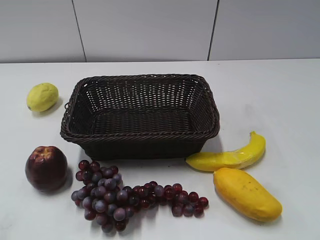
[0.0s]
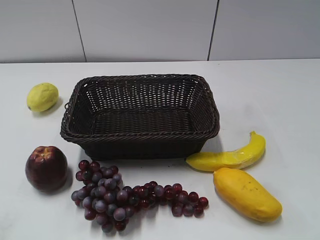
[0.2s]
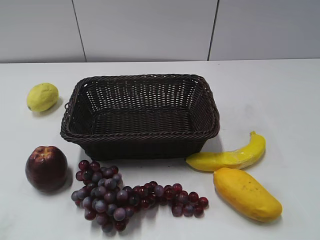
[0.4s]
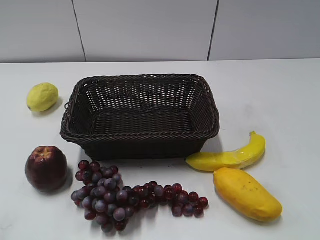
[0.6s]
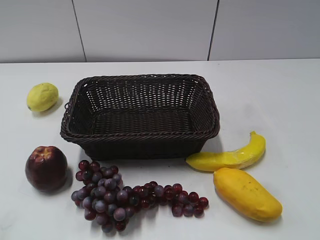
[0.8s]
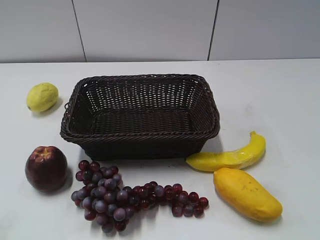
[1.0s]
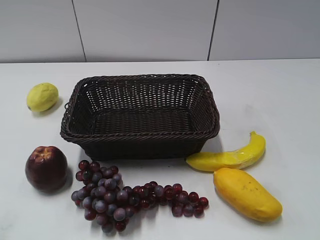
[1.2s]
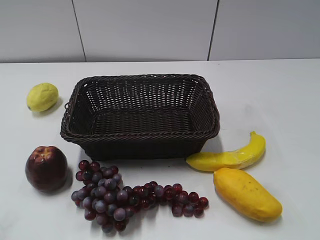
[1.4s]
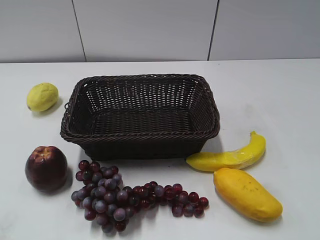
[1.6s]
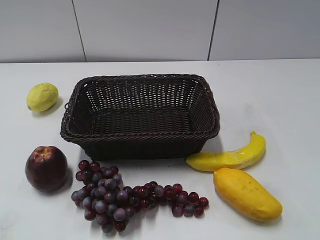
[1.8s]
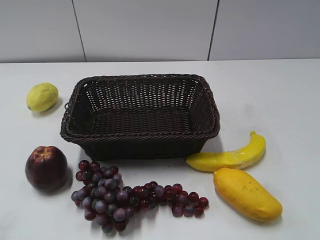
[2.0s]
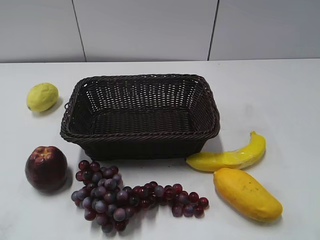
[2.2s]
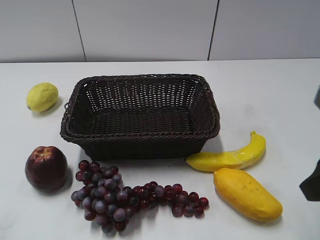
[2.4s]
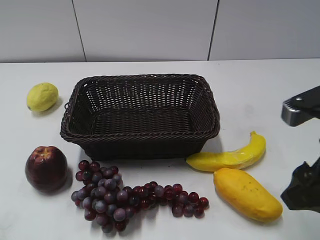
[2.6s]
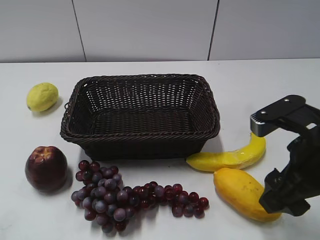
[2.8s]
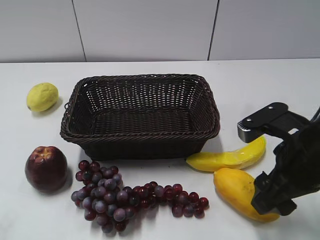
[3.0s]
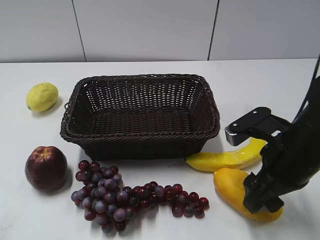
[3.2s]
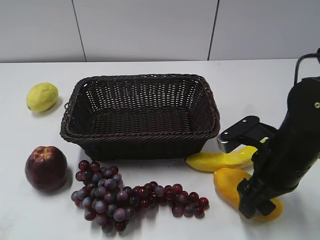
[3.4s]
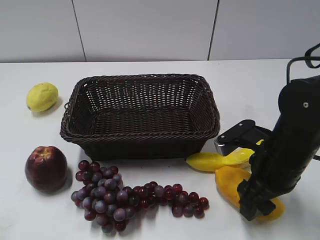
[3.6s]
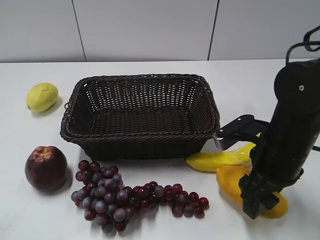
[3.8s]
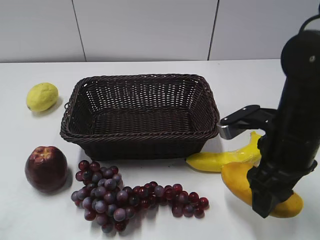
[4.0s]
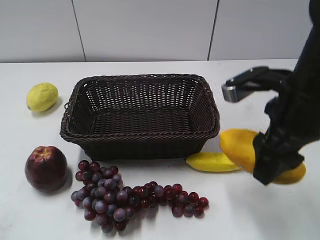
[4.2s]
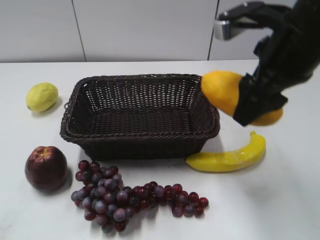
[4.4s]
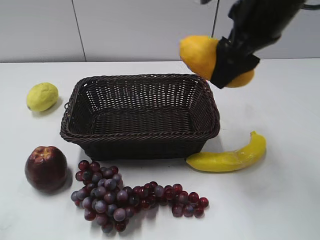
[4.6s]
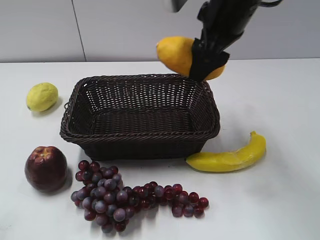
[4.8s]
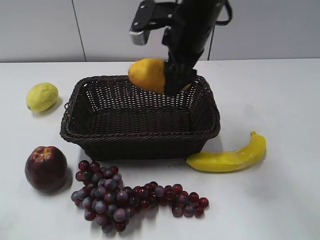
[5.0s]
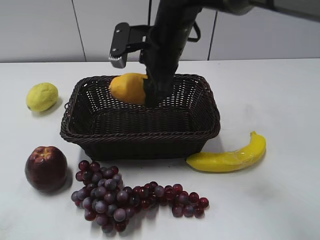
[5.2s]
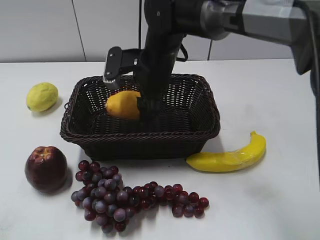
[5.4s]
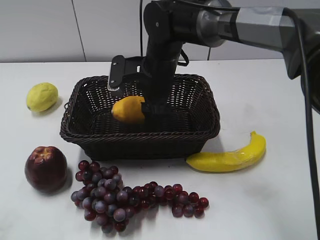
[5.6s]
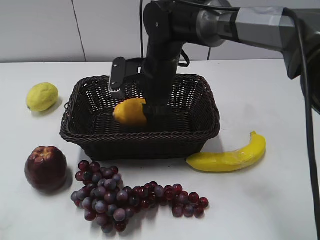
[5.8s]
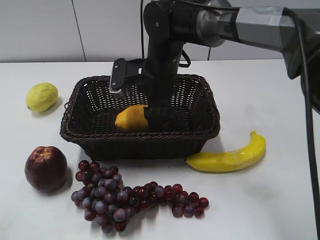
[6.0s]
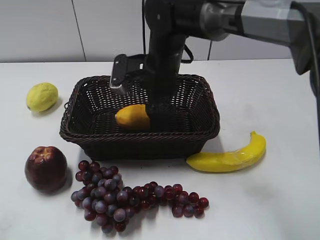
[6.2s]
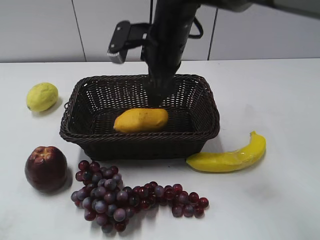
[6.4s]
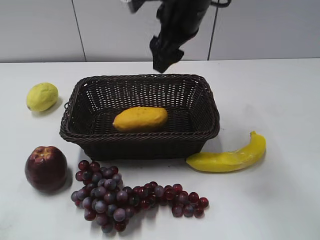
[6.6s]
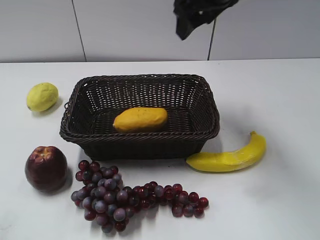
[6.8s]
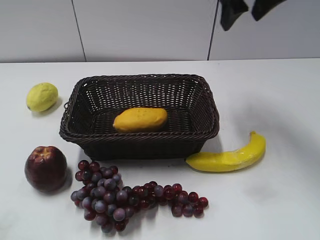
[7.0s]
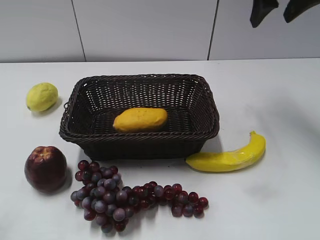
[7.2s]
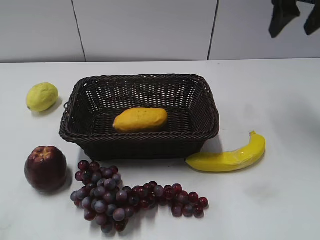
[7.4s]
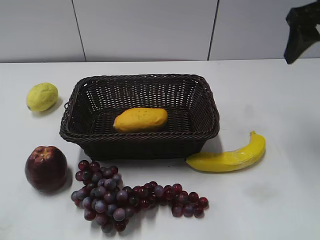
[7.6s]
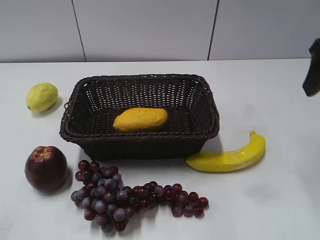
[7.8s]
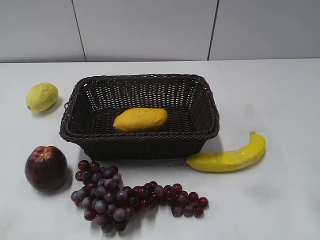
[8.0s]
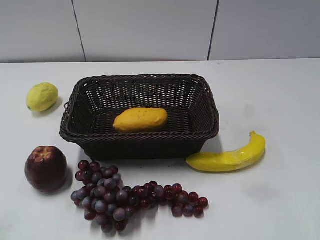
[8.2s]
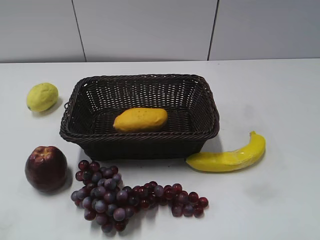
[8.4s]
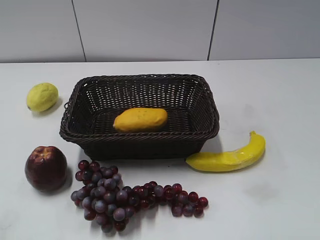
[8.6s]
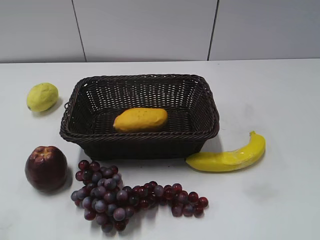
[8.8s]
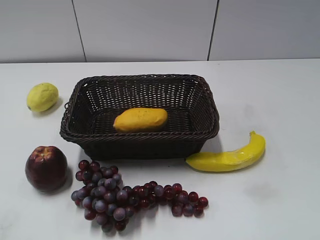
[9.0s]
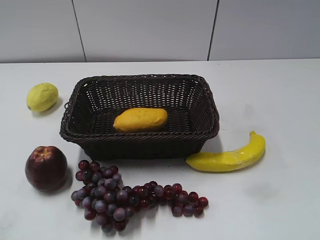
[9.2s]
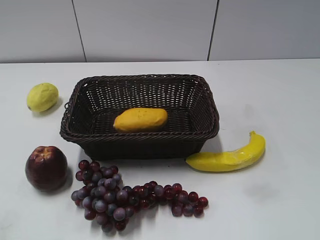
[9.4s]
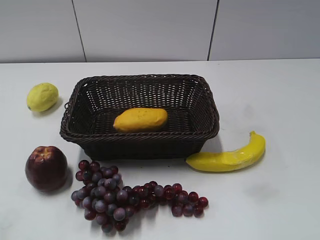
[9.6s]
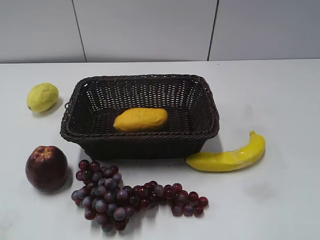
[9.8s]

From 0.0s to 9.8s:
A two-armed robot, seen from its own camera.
Step, from 2.4s to 3.6s: Grasp the mango with right gripper.
Step, from 3.8s to 6.0s: Place the mango in the basket with right gripper.
From 1.4s to 2.8s: The right gripper shifts about 20 cm forward, to the left and downward.
From 2.8s to 4.2s: The right gripper travels downward and back again, roughly 10 cm each way.
From 4.2s to 5.6s: The right gripper moves to the left, forward and downward, some 25 cm.
From 5.6s to 7.0s: The right gripper goes about 25 cm upward and to the right.
From 7.0s to 8.4s: The right gripper goes approximately 30 cm backward and to the right.

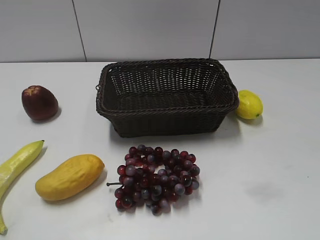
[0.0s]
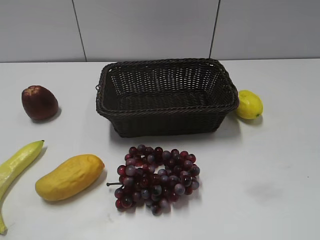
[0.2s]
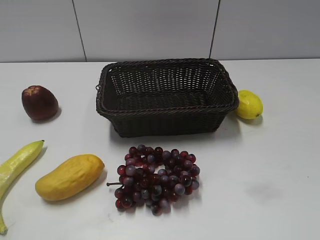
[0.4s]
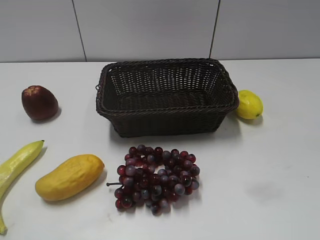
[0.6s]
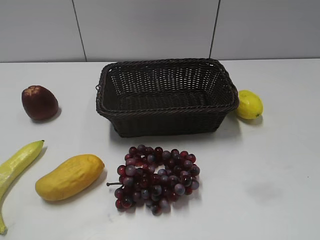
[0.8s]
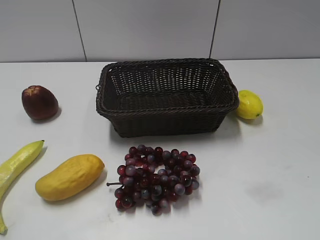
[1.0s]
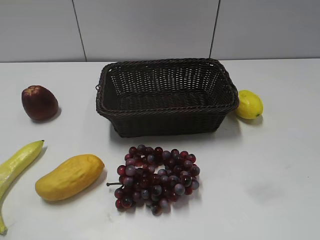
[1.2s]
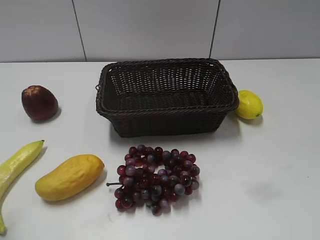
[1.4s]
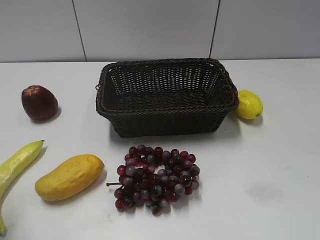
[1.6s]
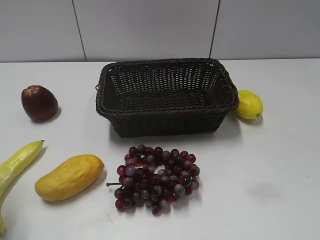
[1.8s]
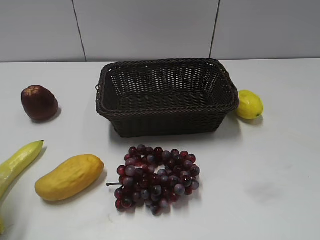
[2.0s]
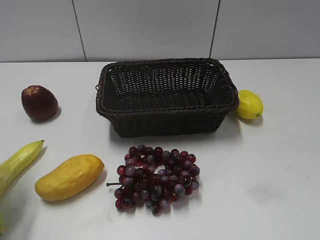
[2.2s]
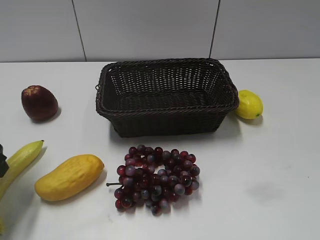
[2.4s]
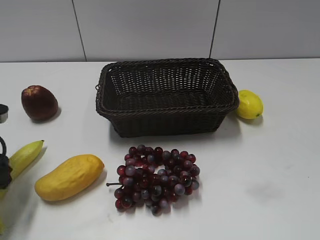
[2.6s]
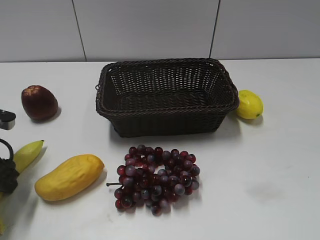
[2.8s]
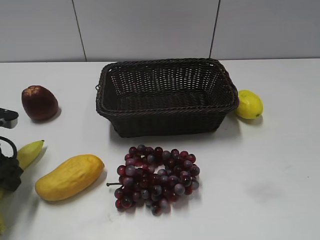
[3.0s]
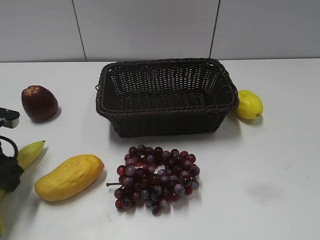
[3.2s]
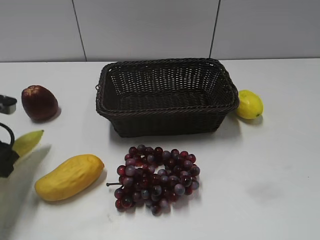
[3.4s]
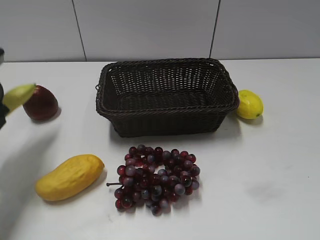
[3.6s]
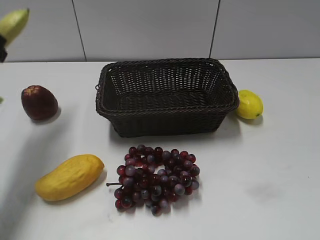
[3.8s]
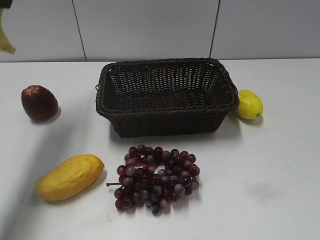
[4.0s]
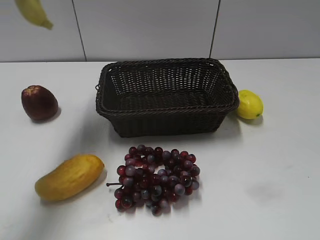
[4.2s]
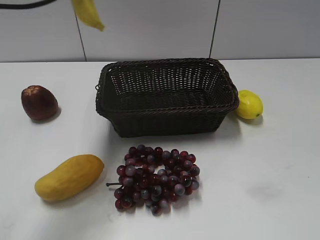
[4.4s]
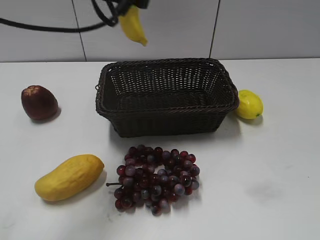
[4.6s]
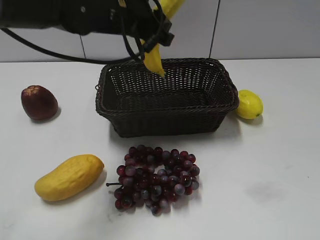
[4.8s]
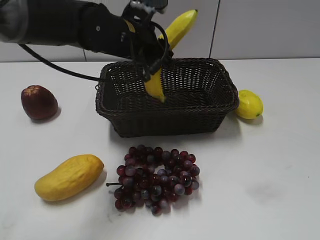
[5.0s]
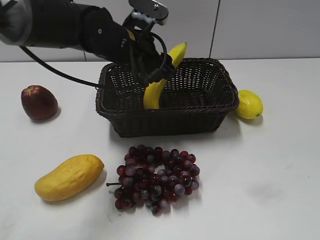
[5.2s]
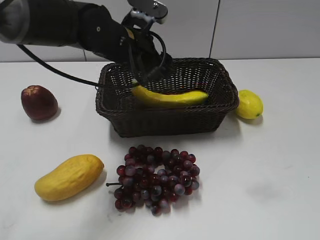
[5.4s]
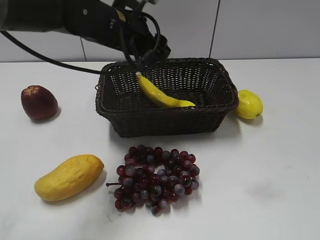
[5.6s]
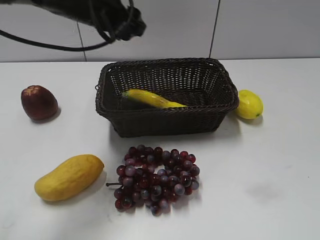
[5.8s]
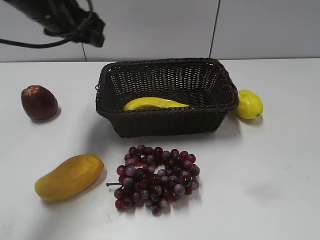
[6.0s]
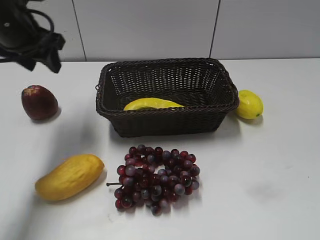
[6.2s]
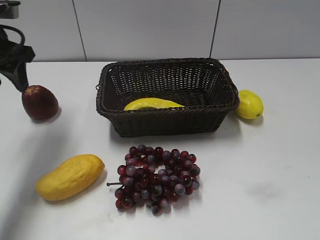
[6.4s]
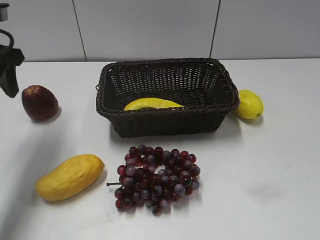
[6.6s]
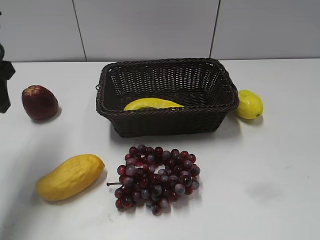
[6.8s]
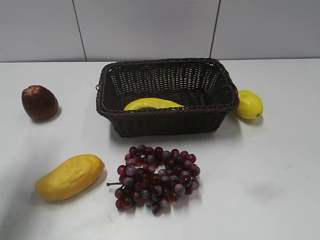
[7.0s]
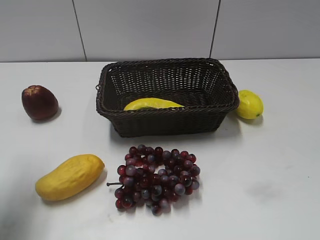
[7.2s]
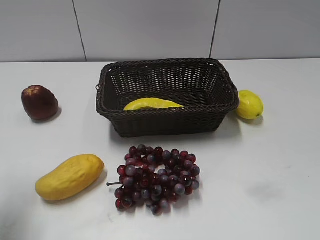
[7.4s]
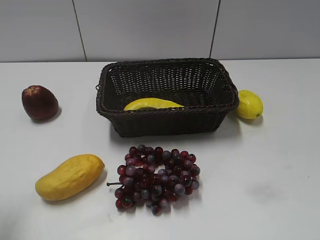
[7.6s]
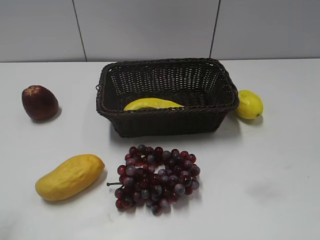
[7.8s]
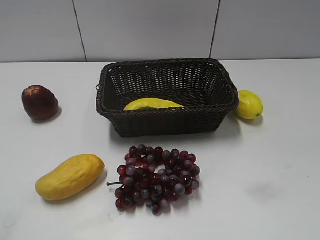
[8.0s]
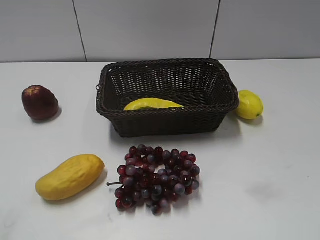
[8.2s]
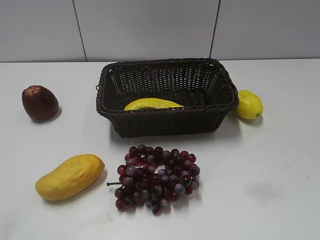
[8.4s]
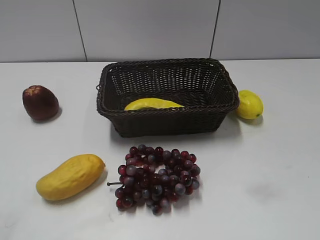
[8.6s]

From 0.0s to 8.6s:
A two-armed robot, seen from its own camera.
Step, from 2.4s to 3.2s: Grasp the banana with left gripper.
Step, from 3.4s to 5.4s: Place the banana in the basket with left gripper.
From 1.4s to 2.8s: The left gripper moves downward and forward, some 20 cm.
From 2.8s to 4.4s: The left gripper is displaced upward, to the right and forward by roughly 30 cm, and closes.
From 4.4s to 5.8s: The left gripper travels downward by approximately 5 cm, and opens.
From 5.8s to 7.2s: The left gripper shifts approximately 25 cm to the left and backward.
From 7.2s to 8.6s: The left gripper is displaced backward by roughly 20 cm.

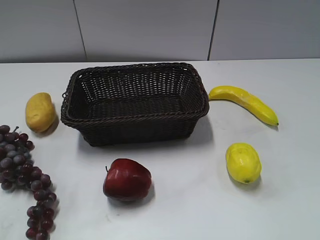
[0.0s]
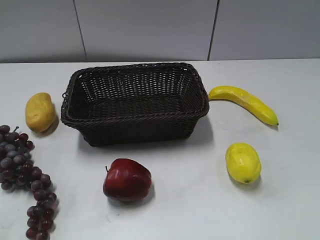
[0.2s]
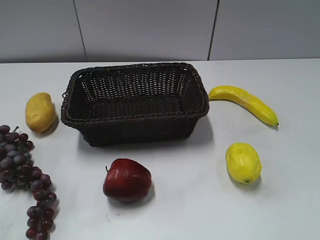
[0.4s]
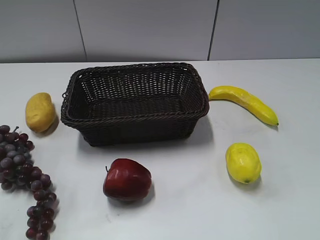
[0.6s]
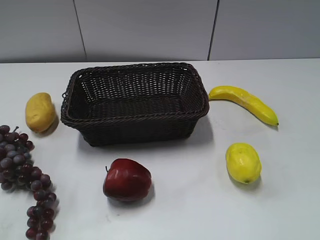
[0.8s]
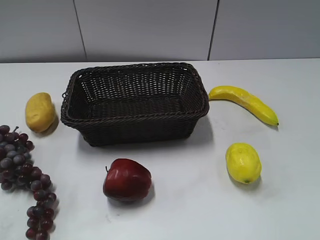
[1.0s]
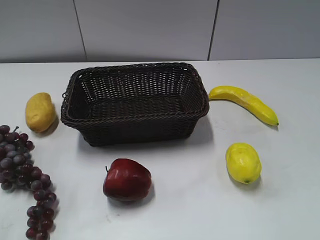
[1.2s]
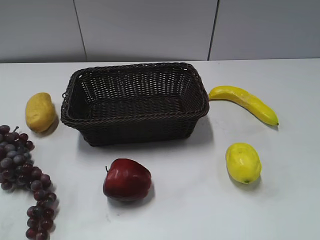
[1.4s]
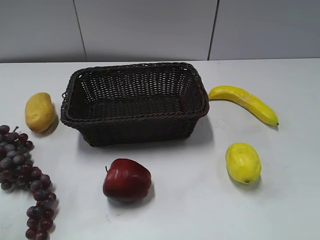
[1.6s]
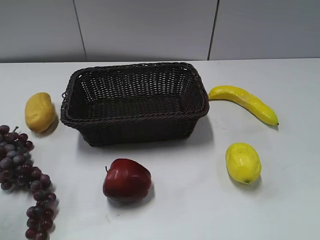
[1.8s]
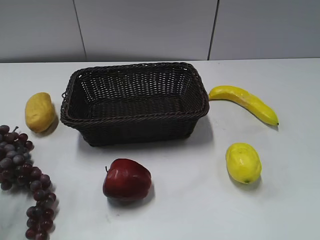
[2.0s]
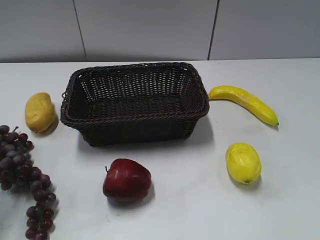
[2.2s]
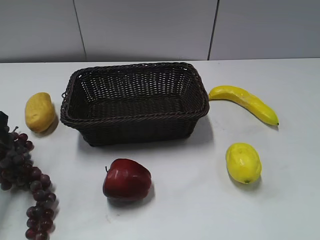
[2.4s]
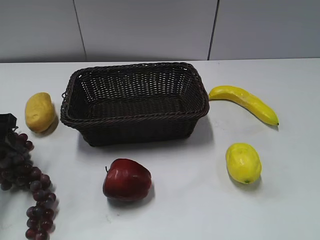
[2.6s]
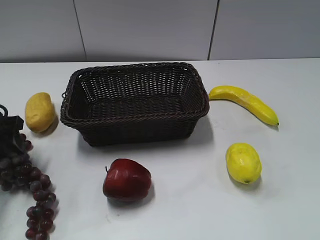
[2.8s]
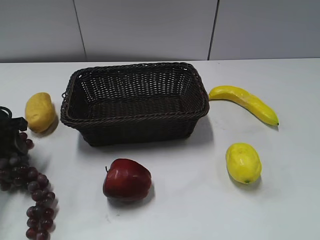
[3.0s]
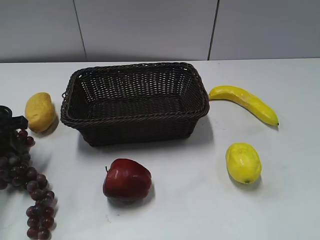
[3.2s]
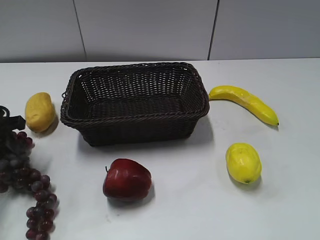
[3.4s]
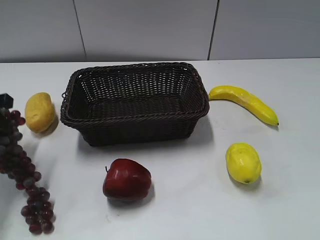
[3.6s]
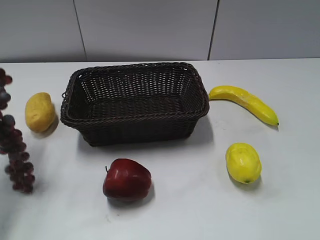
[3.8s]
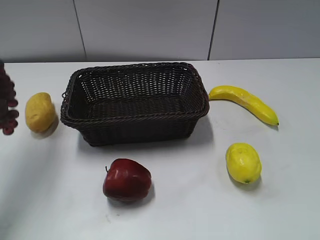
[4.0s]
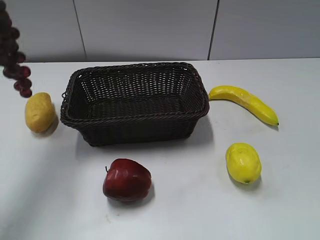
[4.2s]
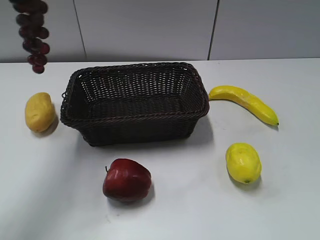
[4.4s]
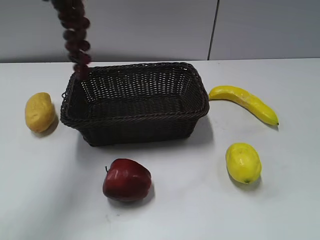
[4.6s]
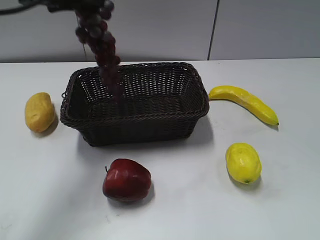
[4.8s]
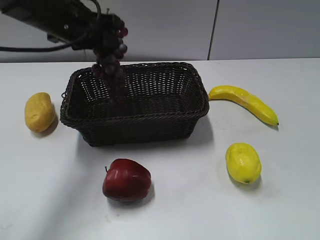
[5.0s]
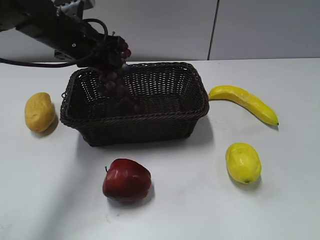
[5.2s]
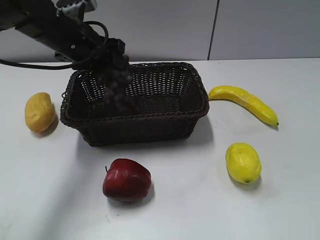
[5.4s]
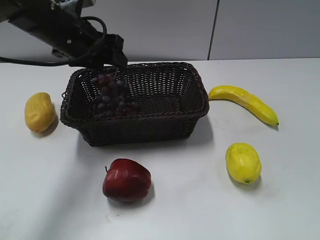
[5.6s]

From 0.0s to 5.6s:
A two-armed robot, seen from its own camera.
From 1.4s to 2.8s: The left gripper moves forward and downward, roughly 30 cm.
From 2.8s to 4.2s: The left gripper travels upward by approximately 25 cm, and closes its fingers.
From 4.2s to 5.6s: The left gripper is displaced downward, to the right and forward by roughly 25 cm, and opens its fingers.
